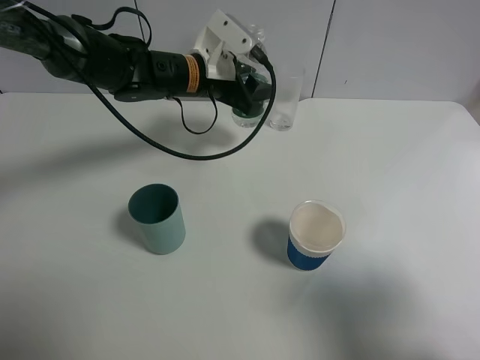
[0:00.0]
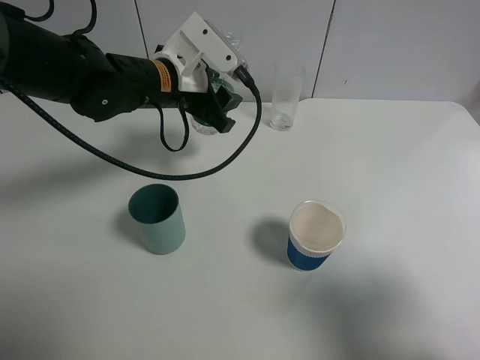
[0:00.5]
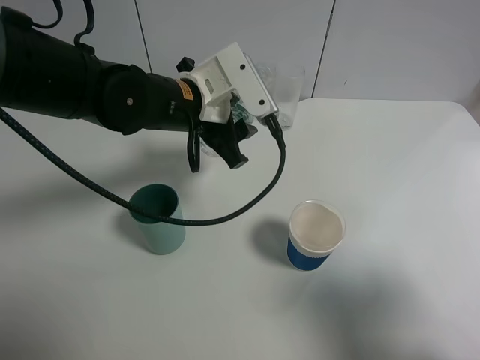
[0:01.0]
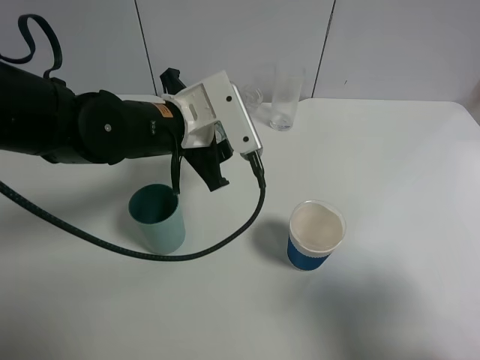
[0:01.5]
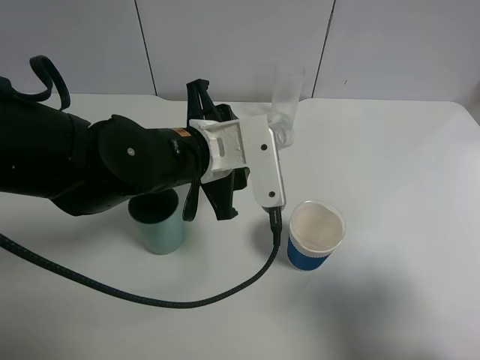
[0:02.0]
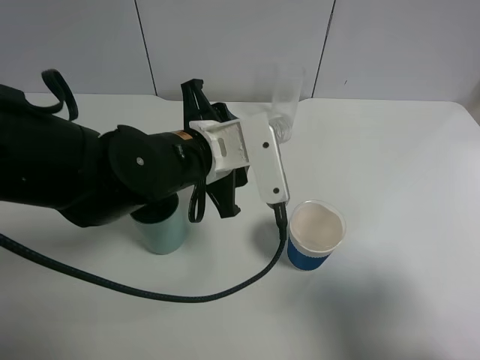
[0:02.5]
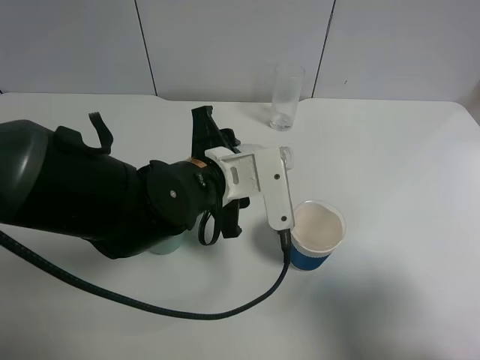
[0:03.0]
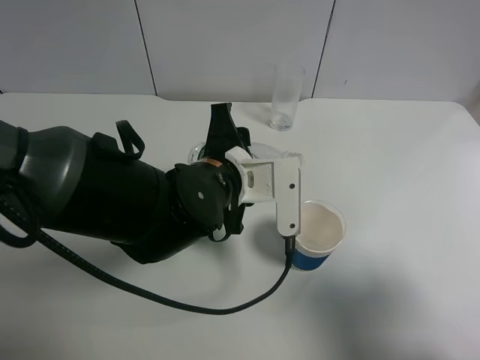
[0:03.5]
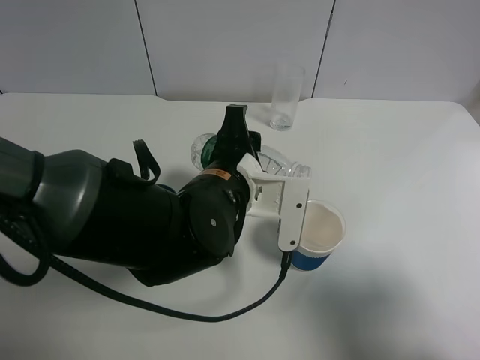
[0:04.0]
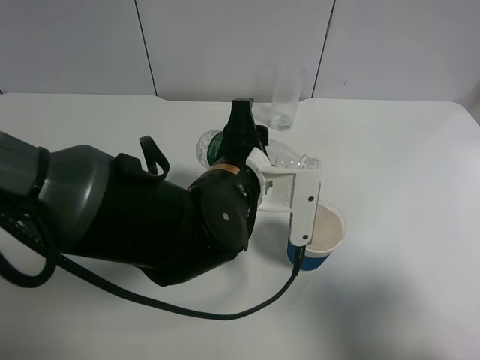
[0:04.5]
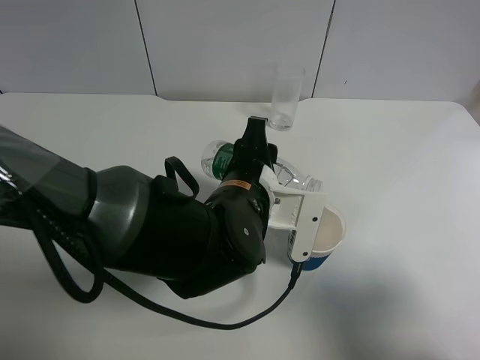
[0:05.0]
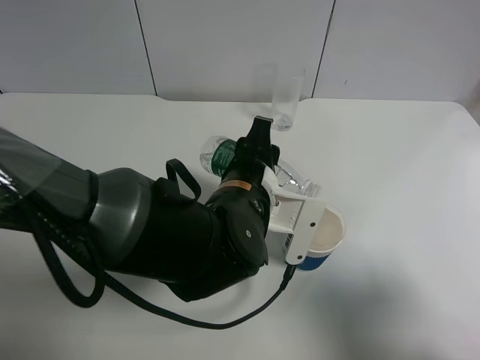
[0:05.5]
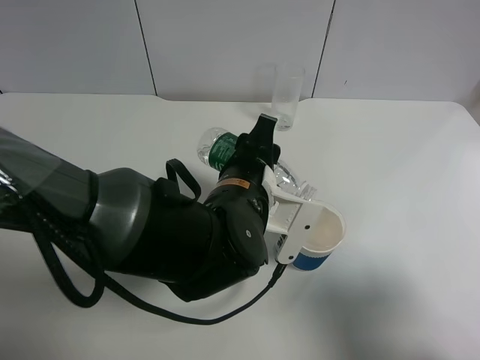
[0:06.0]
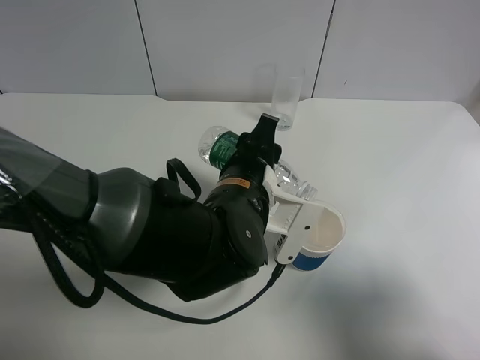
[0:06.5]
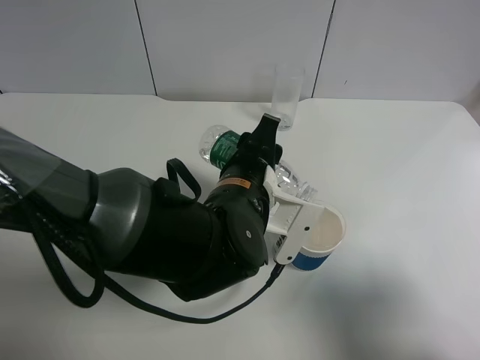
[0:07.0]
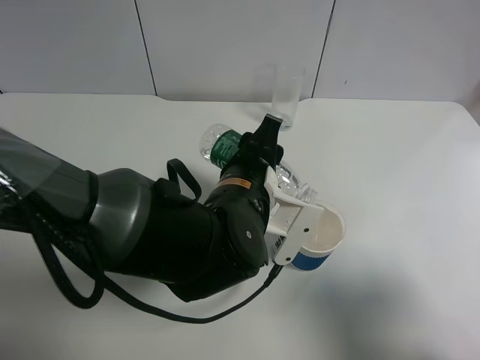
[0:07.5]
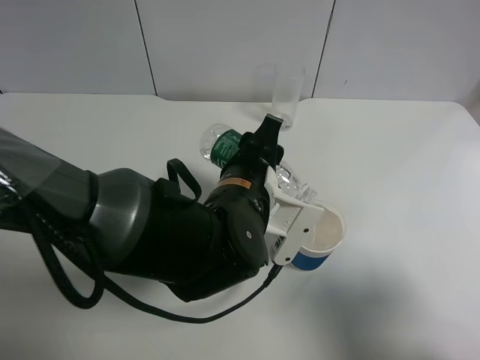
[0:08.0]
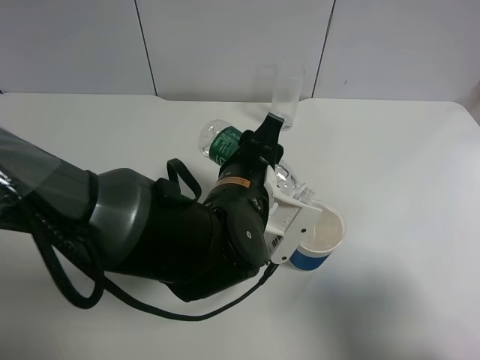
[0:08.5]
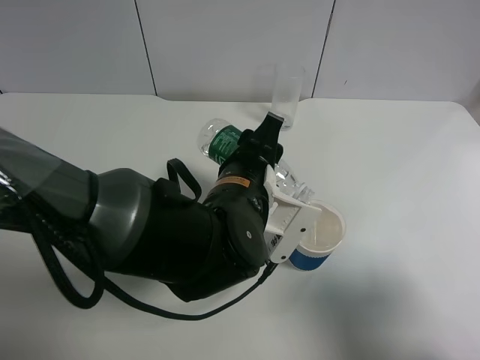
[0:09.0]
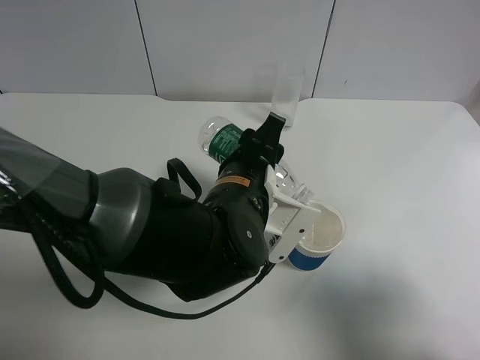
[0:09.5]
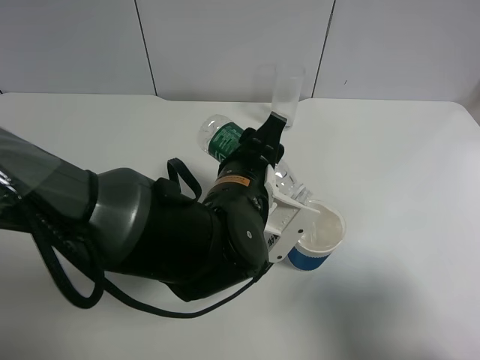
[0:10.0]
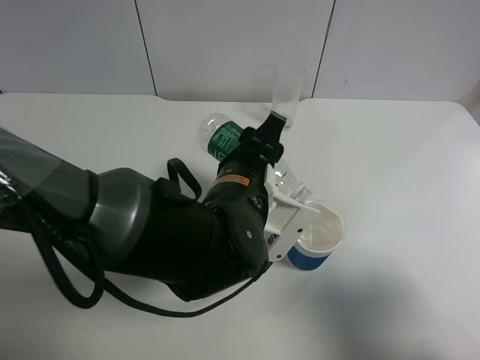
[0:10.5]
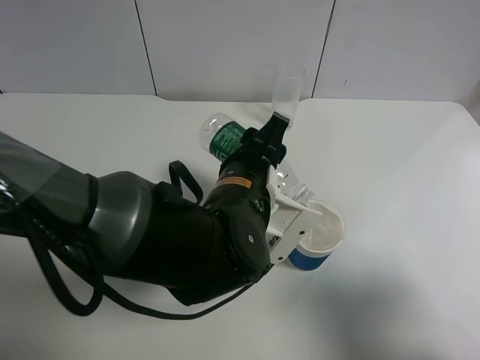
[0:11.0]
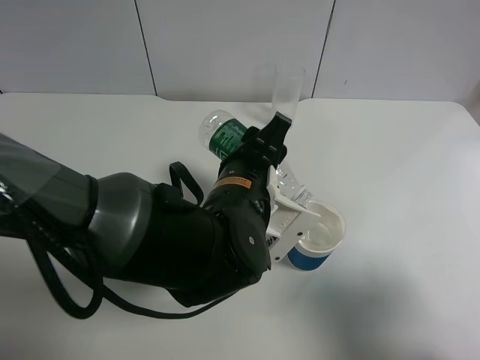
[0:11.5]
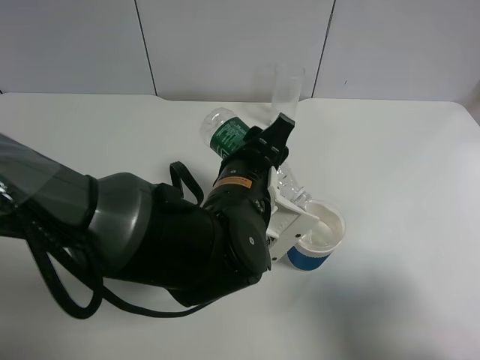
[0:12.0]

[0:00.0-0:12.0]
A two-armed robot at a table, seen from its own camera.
Task of the whole recording: use a gripper to hold the bottle of the drink and pour it into a random cup.
0:00.0 to 0:02.0: The left gripper is displaced backward by roughly 15 cm.
0:02.0 to 0:04.0: The left gripper changes place by about 5 cm.
0:04.0 to 0:06.0: The grippers make only small movements.
0:06.0 to 0:08.0: The two grippers keep their place.
0:08.0 to 0:12.0: The grippers move only a little.

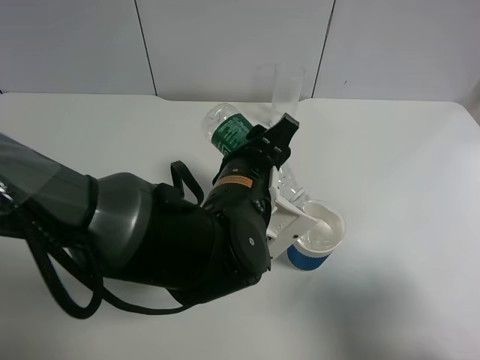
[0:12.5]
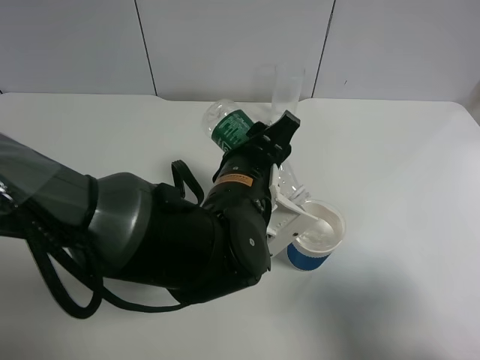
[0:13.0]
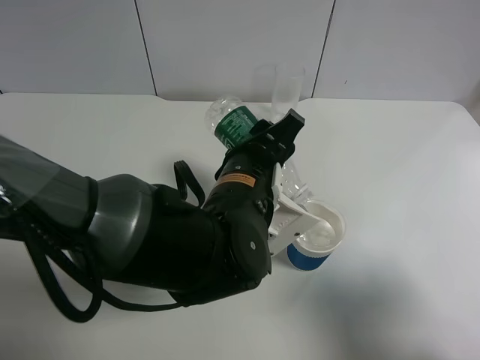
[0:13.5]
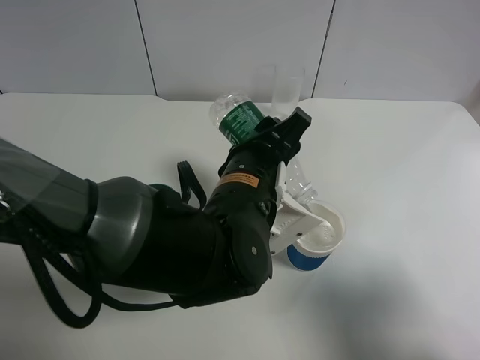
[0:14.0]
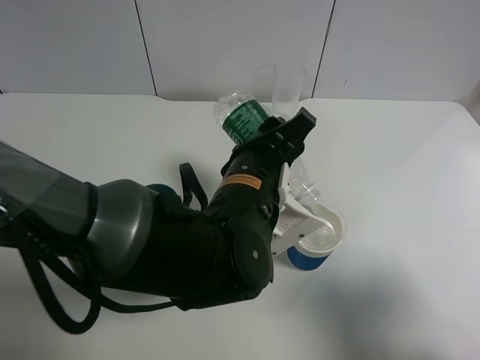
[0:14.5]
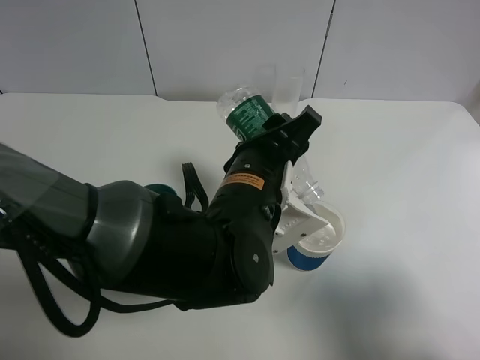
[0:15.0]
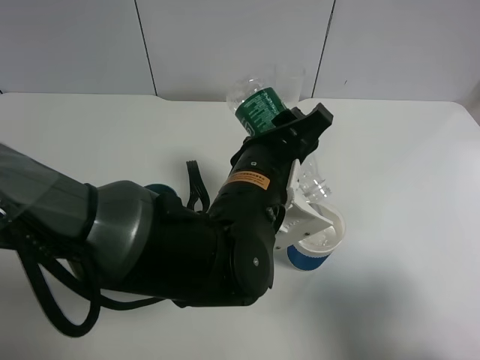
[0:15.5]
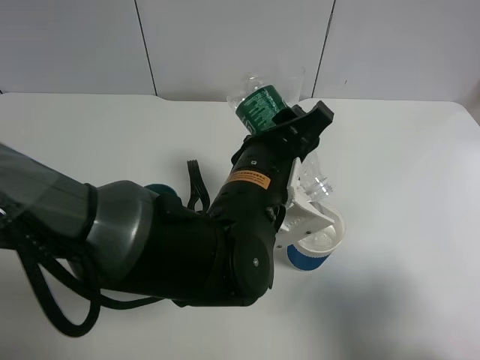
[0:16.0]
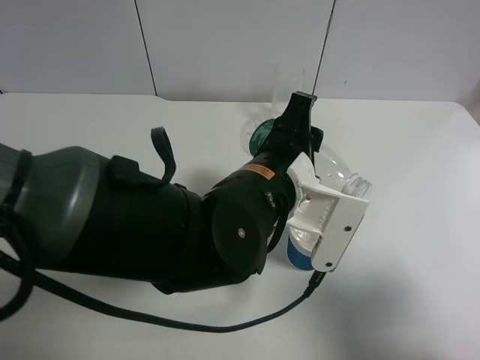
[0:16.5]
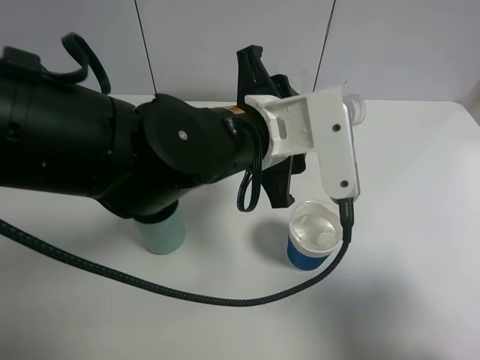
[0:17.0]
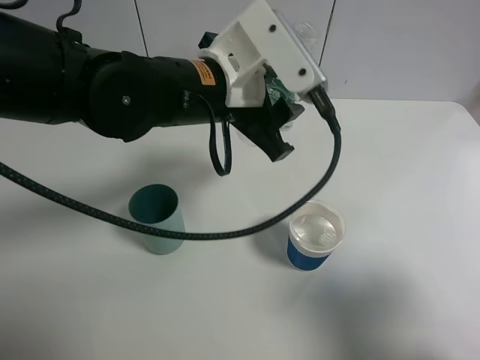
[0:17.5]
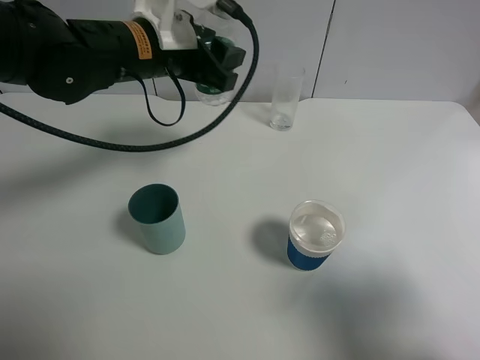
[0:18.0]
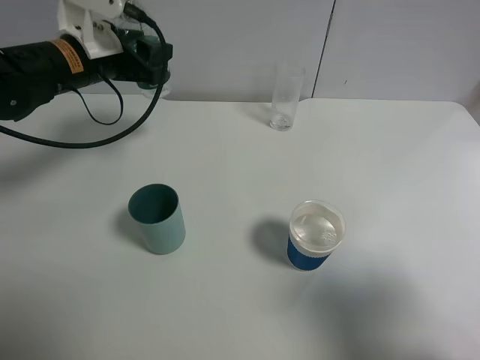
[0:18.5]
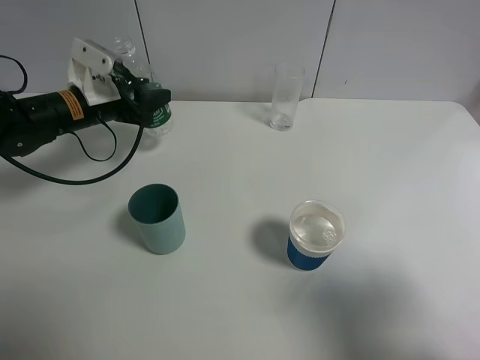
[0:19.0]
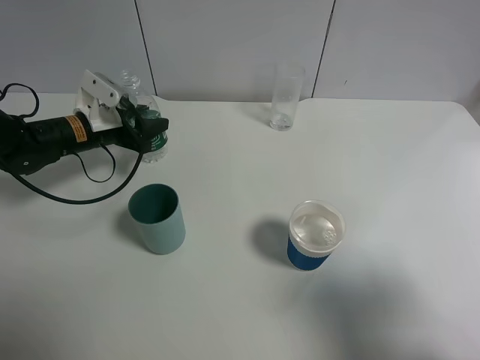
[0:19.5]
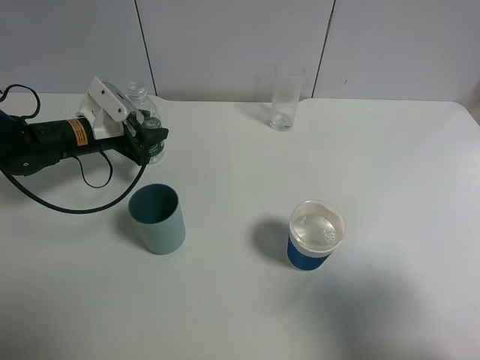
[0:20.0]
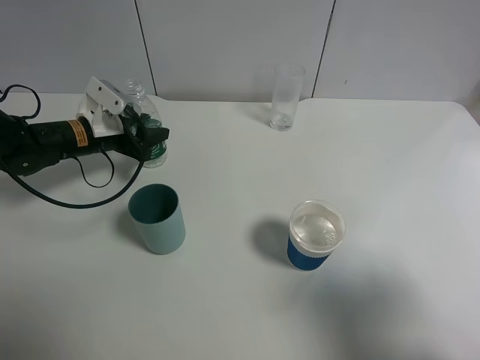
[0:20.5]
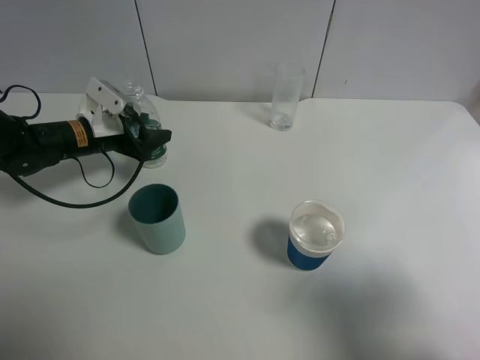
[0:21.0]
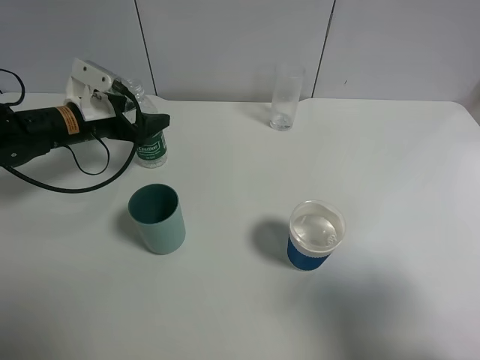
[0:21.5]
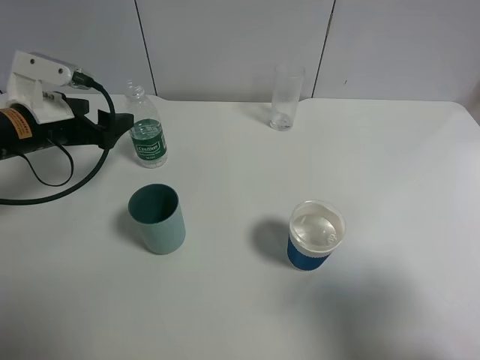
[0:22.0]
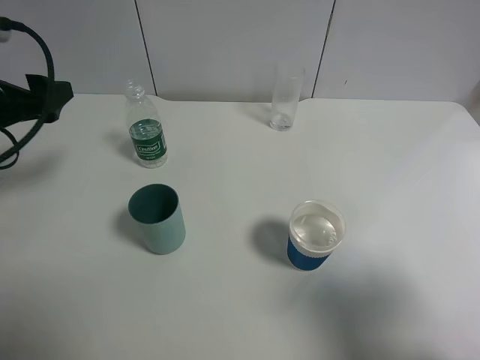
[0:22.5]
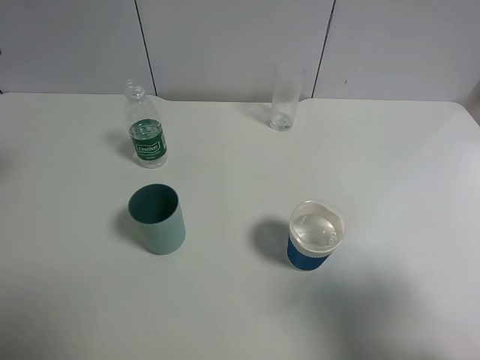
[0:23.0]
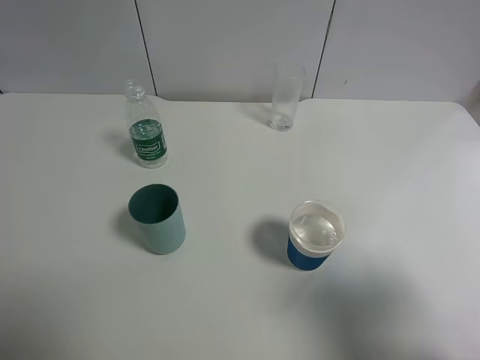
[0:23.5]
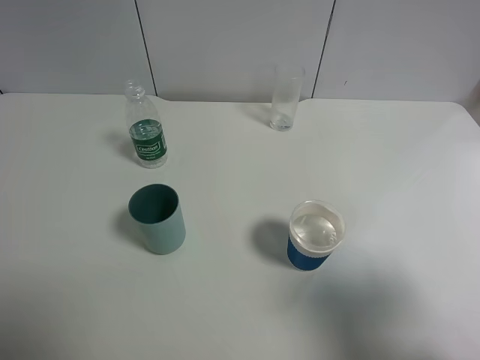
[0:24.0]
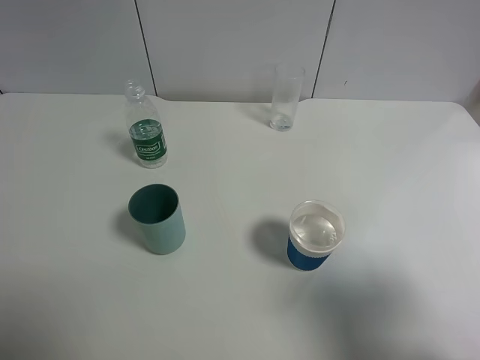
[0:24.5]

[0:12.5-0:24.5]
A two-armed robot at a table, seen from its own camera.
Task of the whole recording: use a gripper to hold the bottle of the drink and pour it into a random cup.
Step, 0:12.5 to 0:16.5: Pour the mineral water into the paper cup with the left gripper.
Step, 0:17.0 to 0:21.5: Place the mineral water bottle on the table with the left gripper.
0:12.5 to 0:14.5: The grippers move only a little.
0:16.5 to 0:18.5: The left gripper goes roughly 30 cm to the left and forward.
0:18.5 to 0:20.5: The left gripper travels downward by some 10 cm.
0:20.5 to 0:22.5: The left gripper shifts roughly 20 cm upward and backward, and opens its fingers.
0:22.5 to 0:24.5: The left gripper moves backward, roughly 25 cm.

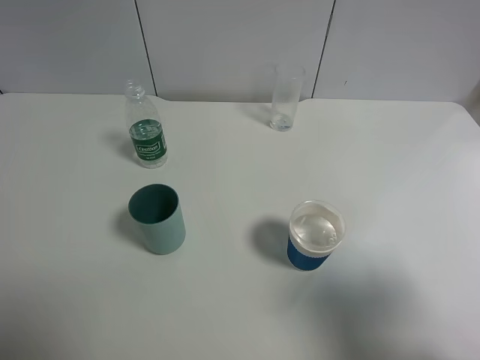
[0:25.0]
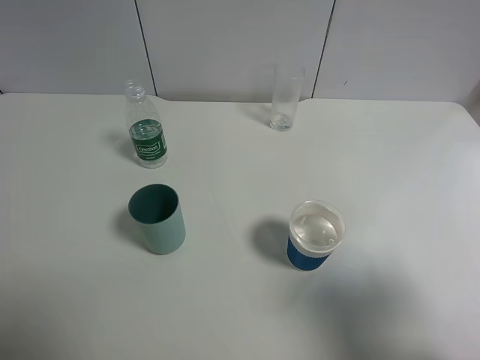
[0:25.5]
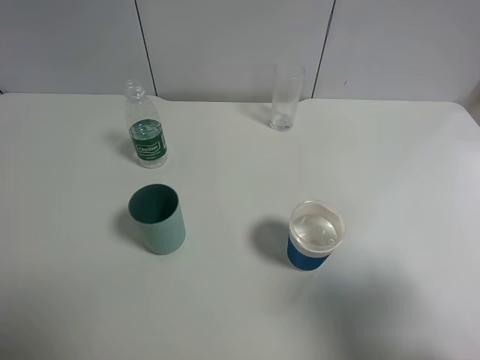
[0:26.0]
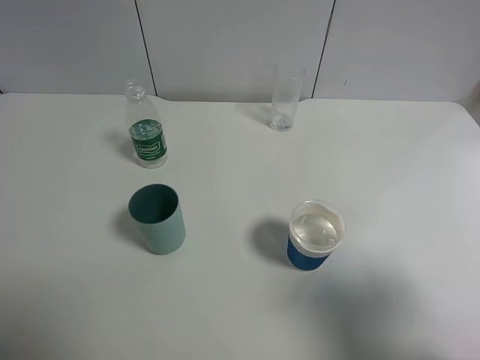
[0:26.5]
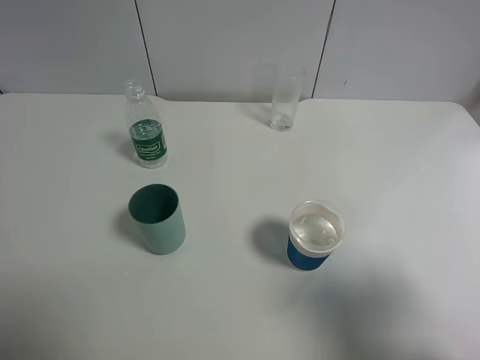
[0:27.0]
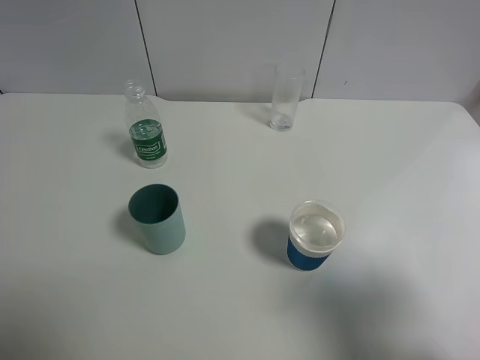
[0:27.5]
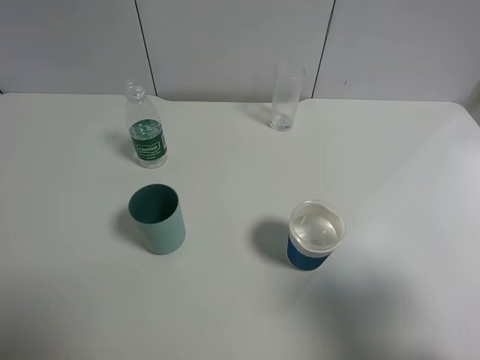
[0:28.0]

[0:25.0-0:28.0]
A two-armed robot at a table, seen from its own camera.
Task of the whole recording: use a gripper to hold the bottle of the drink and pour it into a random cup.
0:25.0 to 0:28.0: The two grippers keep their place.
